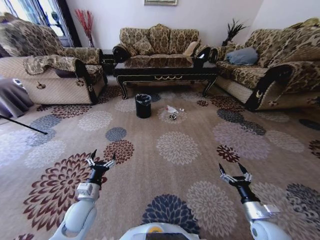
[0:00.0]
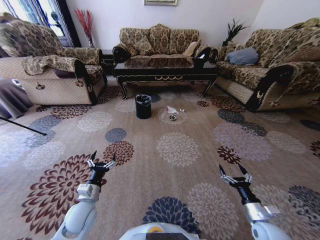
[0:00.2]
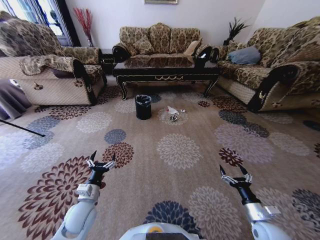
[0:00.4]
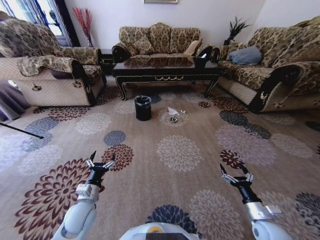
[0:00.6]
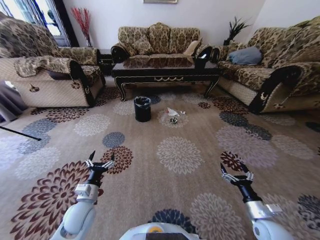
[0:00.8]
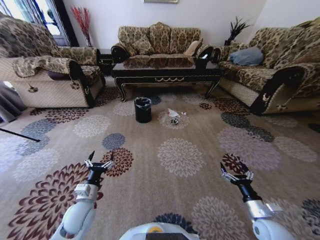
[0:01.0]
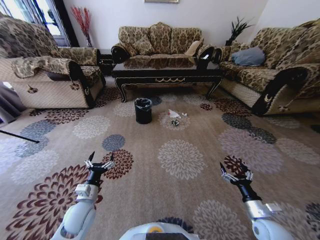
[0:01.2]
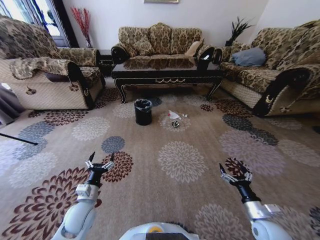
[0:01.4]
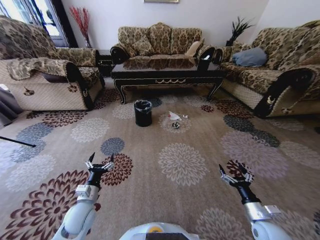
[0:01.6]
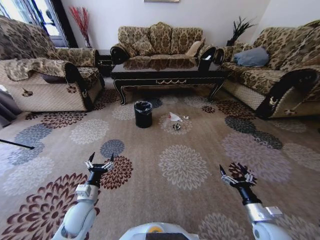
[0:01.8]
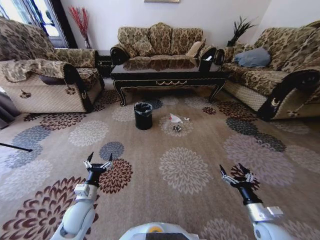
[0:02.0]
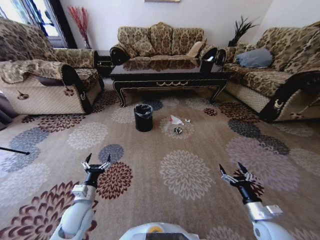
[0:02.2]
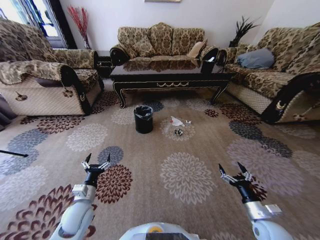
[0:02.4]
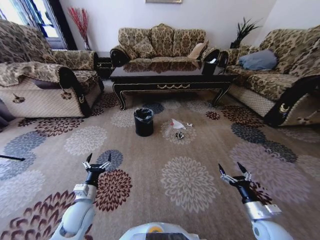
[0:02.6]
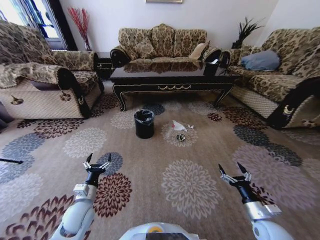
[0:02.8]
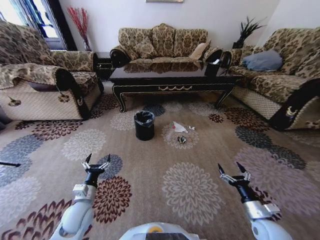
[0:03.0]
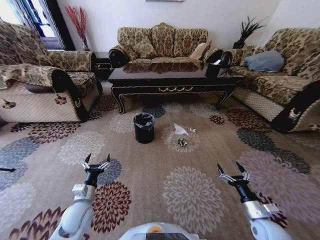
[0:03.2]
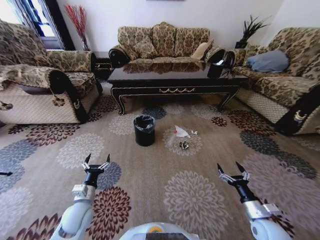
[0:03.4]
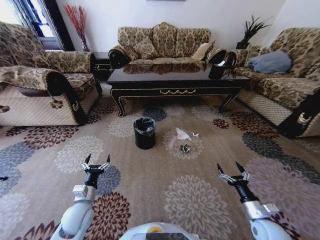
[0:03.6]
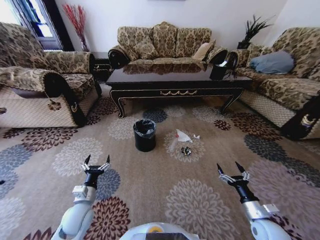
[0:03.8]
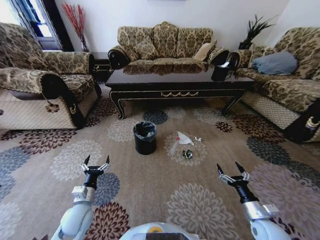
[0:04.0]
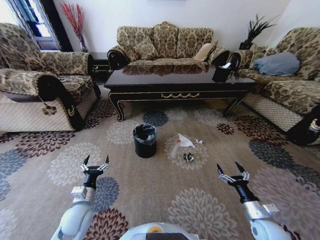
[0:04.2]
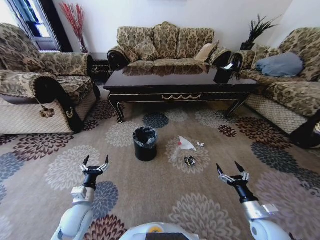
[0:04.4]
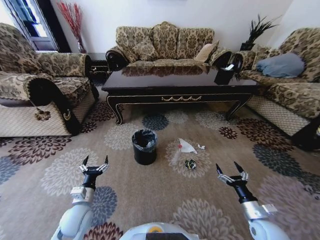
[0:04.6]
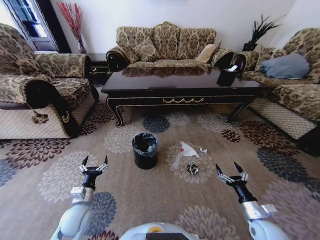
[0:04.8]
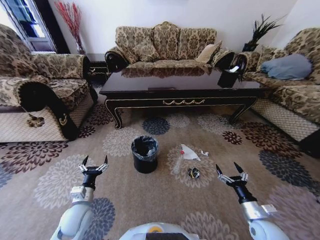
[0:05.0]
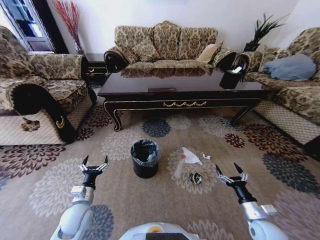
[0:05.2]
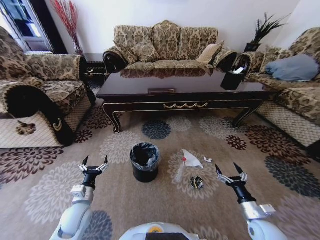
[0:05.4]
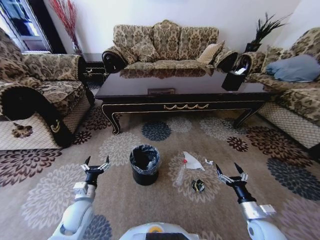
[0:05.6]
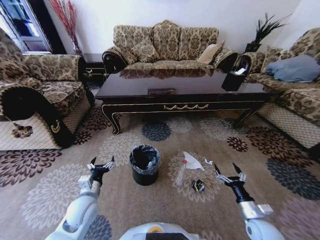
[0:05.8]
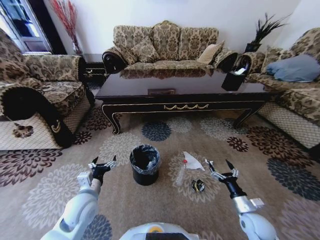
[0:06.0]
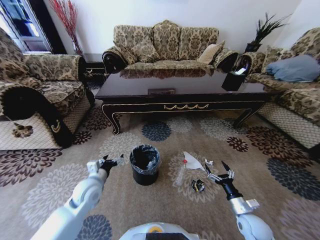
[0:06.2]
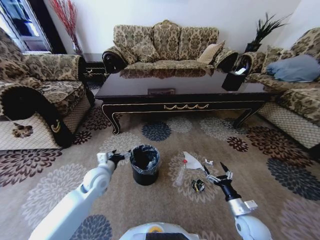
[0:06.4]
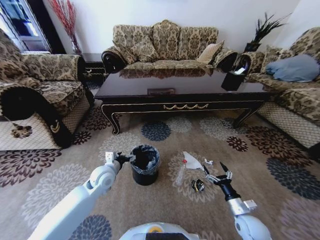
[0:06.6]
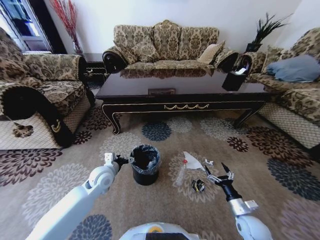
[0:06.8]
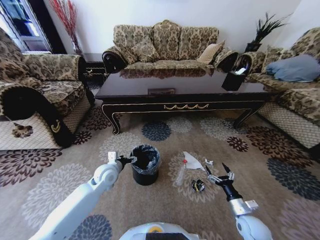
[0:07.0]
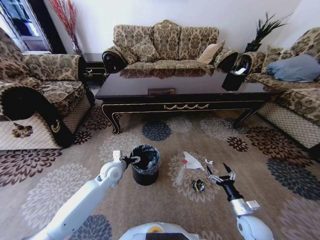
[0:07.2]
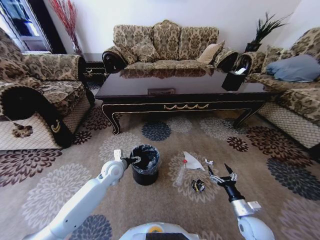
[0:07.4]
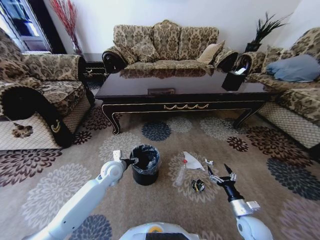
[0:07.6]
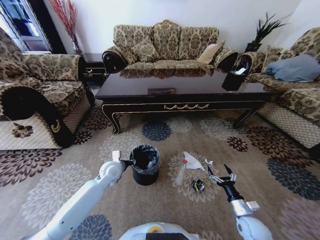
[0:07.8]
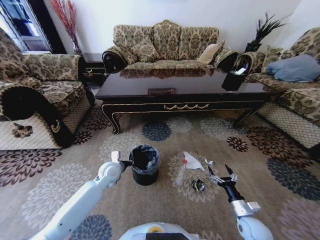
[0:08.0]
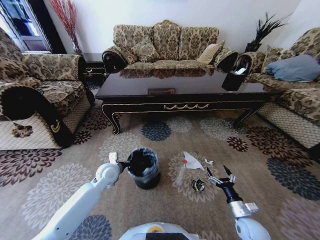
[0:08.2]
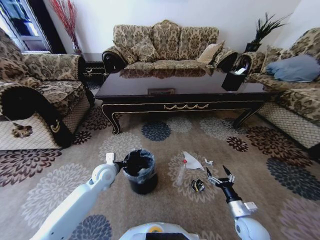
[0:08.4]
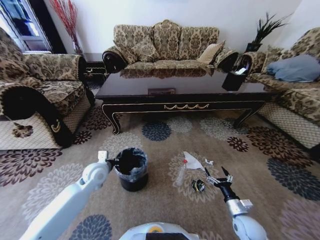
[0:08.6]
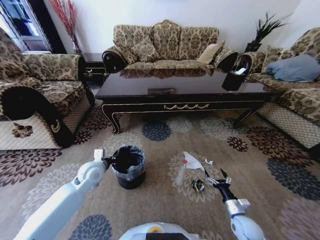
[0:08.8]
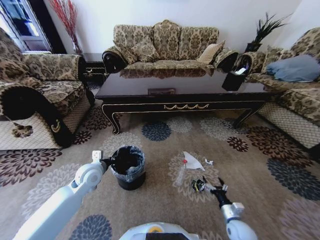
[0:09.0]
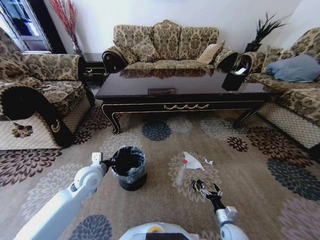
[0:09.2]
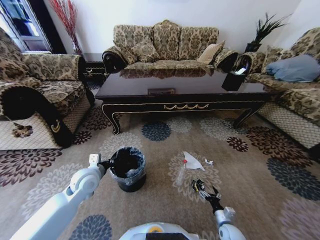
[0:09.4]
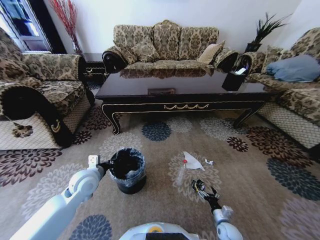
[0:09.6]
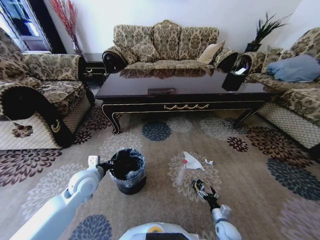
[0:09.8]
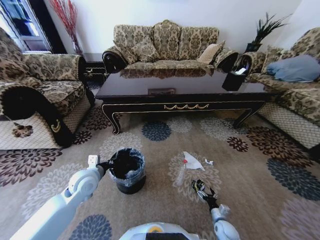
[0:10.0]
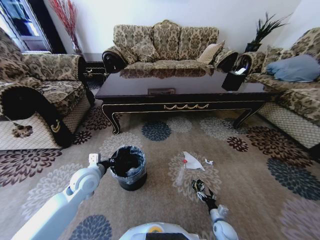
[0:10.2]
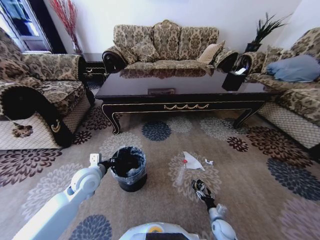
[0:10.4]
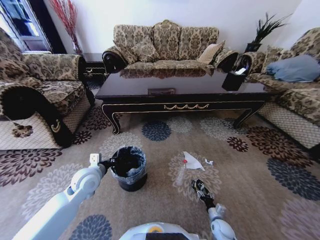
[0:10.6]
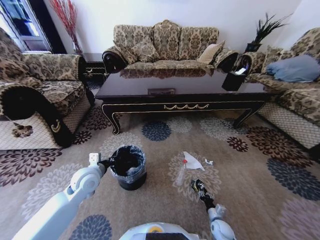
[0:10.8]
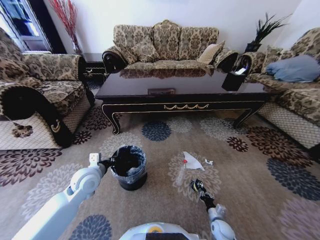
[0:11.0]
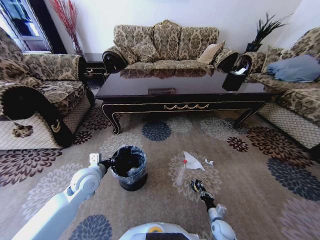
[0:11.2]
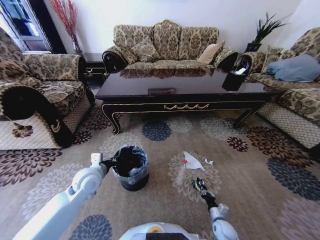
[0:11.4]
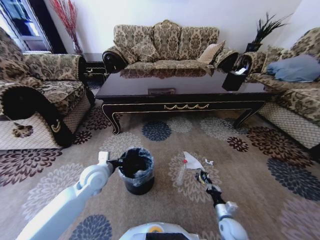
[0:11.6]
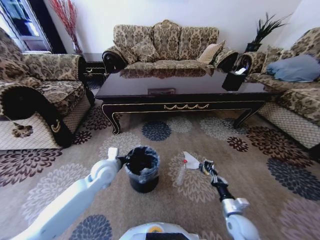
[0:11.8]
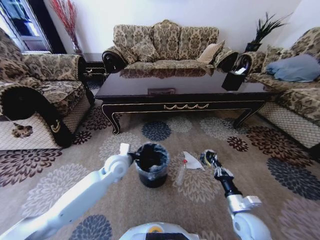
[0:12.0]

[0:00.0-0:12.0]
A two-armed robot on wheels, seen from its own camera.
Task of the whole recording: Move to the front of the table and pick up the trash from the floor, then place it into the trash bin.
0:04.4 to 0:06.0: The left gripper travels upward by about 5 cm.
0:06.0 to 0:07.6: The left gripper moves forward, about 15 cm.
0:07.6 to 0:09.0: The left gripper travels to the left by some 5 cm, and closes; the right gripper moves downward, some 5 cm.
0:09.0 to 0:10.4: The right gripper is displaced downward by approximately 10 cm.
0:10.4 to 0:12.0: The left gripper shifts about 15 cm to the right and forward; the right gripper goes about 25 cm upward, and closes its fingers.

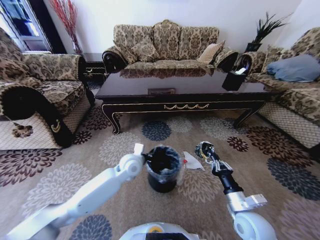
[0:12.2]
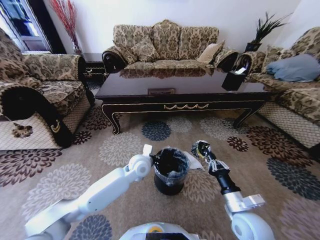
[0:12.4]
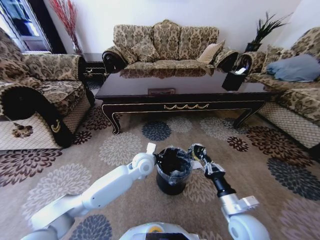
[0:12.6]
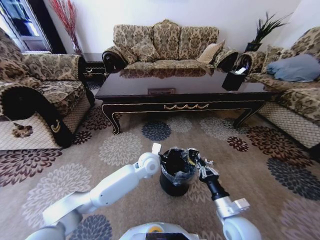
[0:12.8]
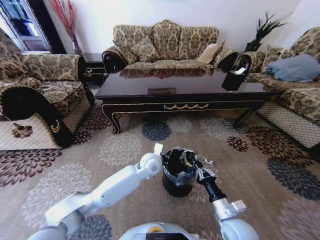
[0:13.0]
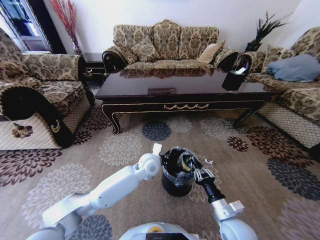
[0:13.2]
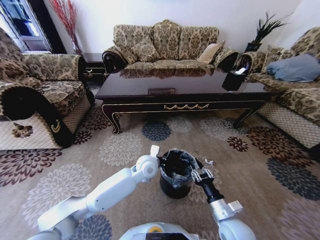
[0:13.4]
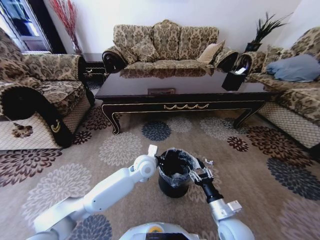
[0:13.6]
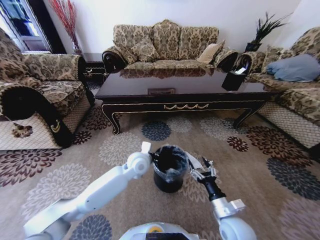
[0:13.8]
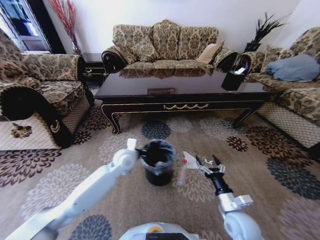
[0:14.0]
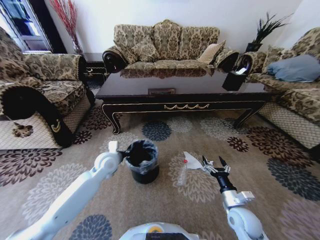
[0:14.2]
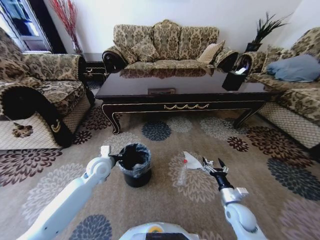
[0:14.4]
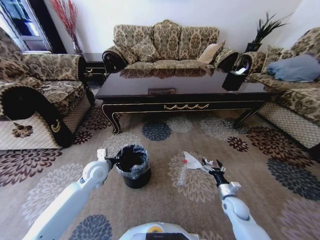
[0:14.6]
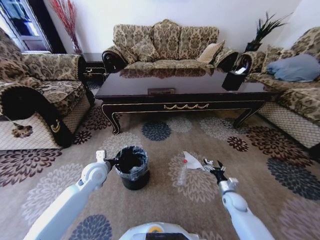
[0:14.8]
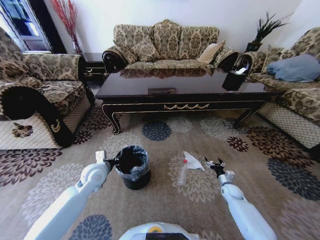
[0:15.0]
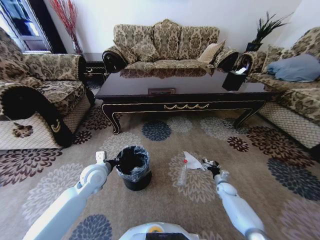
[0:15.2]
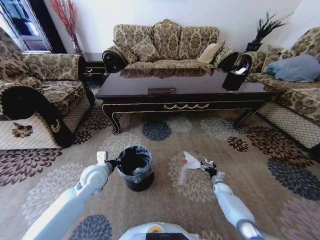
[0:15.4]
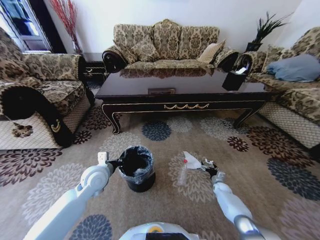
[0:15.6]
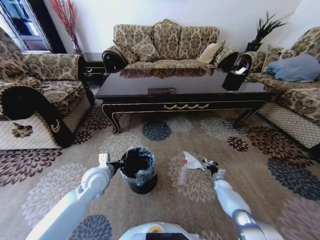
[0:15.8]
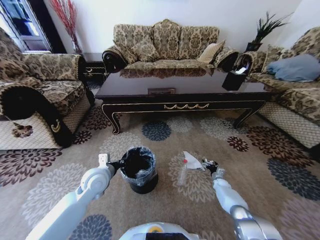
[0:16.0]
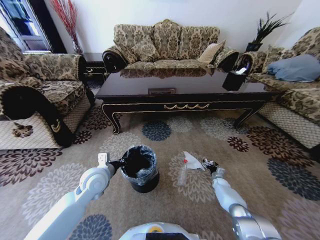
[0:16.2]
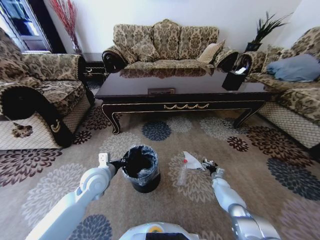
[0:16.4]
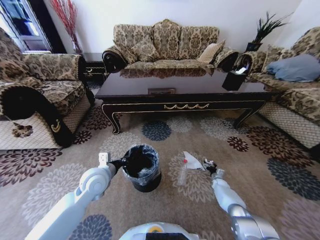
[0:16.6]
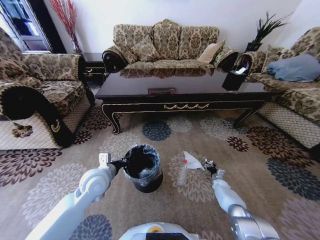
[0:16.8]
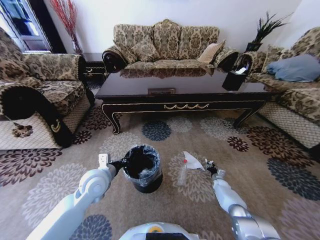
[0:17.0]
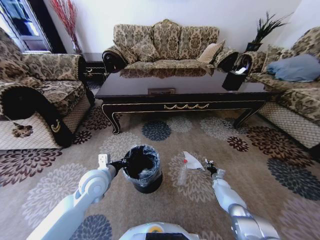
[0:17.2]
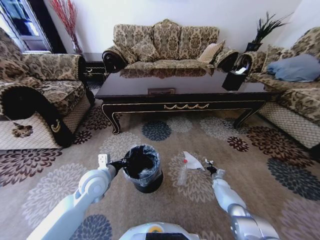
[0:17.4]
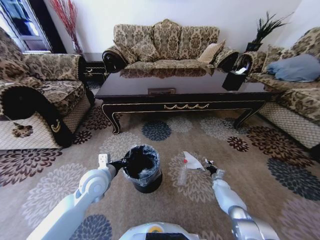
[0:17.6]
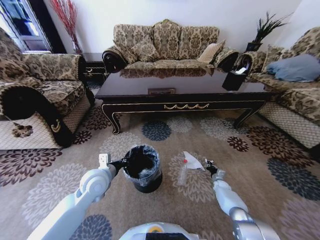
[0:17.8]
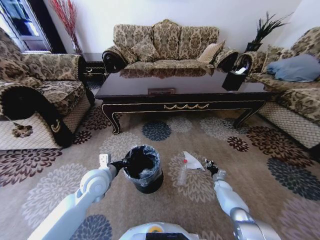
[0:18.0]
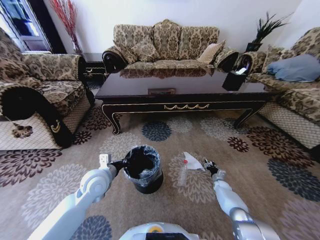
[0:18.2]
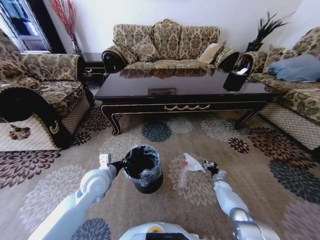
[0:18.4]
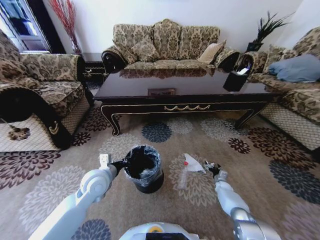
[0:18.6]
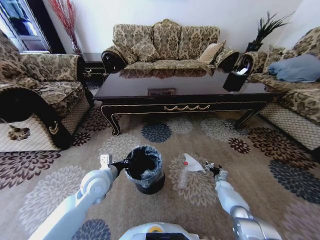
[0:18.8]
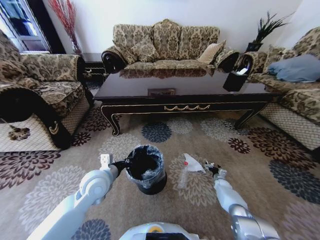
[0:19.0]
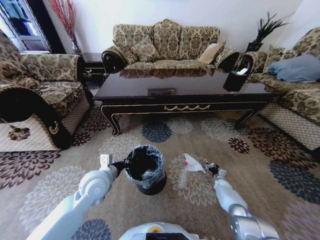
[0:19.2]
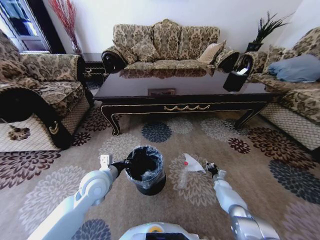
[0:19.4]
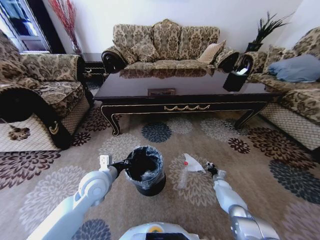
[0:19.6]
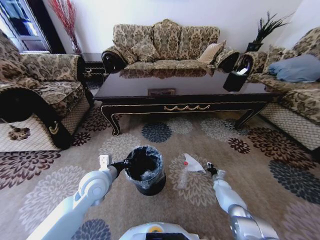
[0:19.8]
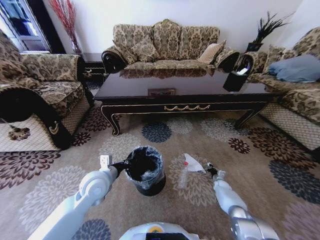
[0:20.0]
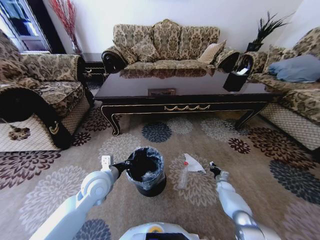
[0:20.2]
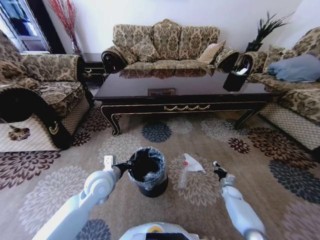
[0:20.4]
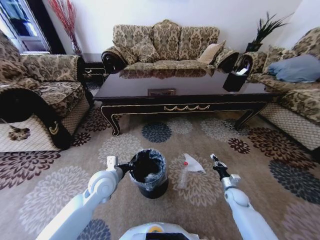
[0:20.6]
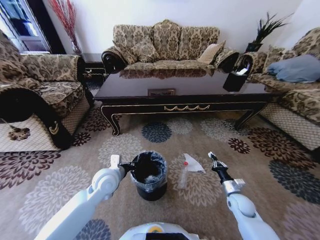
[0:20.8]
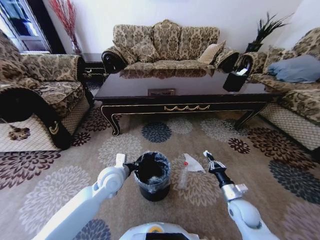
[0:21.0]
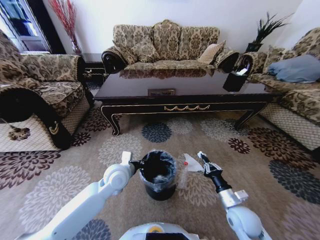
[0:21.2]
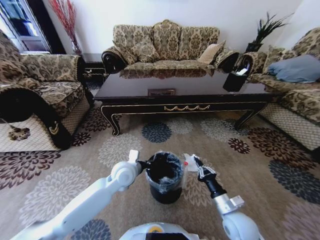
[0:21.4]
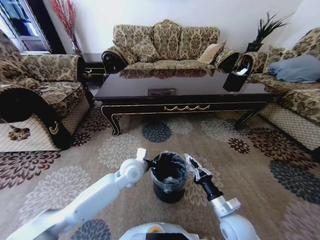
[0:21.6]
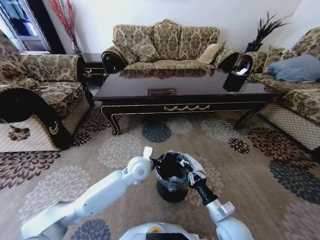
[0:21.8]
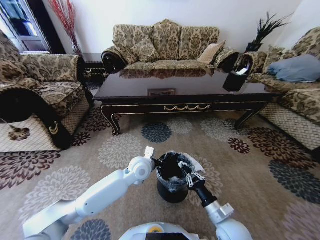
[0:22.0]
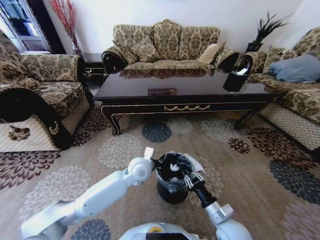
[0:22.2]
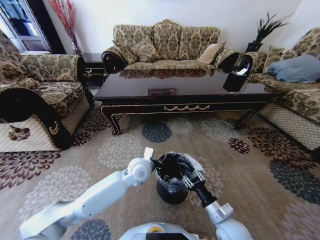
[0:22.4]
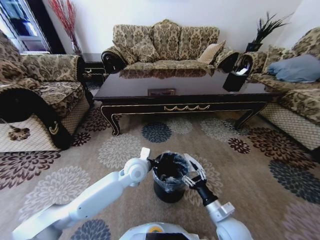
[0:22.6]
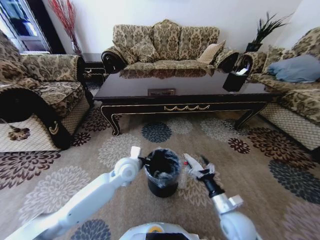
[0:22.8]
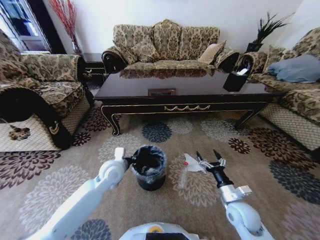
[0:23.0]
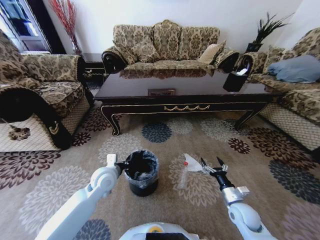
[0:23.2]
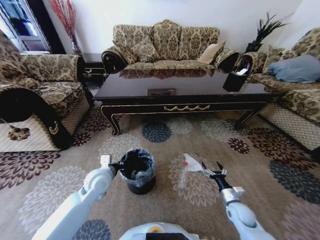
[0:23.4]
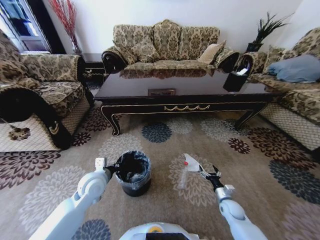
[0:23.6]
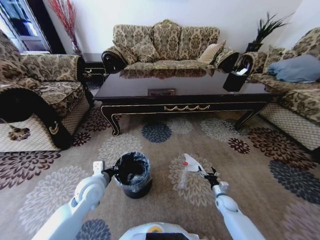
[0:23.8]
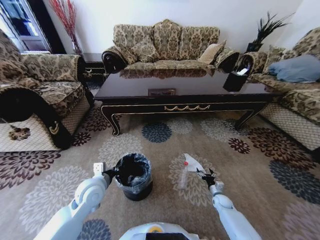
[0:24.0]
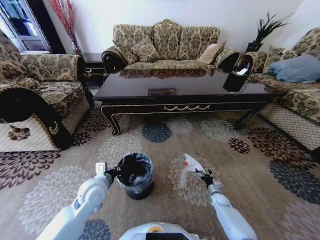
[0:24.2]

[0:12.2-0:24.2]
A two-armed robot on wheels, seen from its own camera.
Task of the whole recording: Move to the front of the table and pick up the trash from the floor, then place it into the trash bin.
0:12.2 to 0:13.8: The right gripper changes place by approximately 5 cm, and opens its fingers.
0:13.8 to 0:15.2: The left gripper shifts approximately 20 cm to the left. Meanwhile the right gripper moves forward, downward and to the right, some 35 cm.
0:15.2 to 0:16.6: The right gripper changes place by about 5 cm; the left gripper moves approximately 5 cm.
0:16.6 to 0:18.2: The right gripper closes, then opens again.
0:18.2 to 0:19.8: The right gripper closes its fingers.
0:19.8 to 0:21.2: The right gripper is displaced upward, backward and to the left by some 35 cm. Meanwhile the left gripper shifts about 5 cm to the right.
0:21.2 to 0:22.6: The left gripper is displaced to the right by about 5 cm, while the right gripper is displaced to the left by approximately 5 cm, and opens its fingers.
0:22.6 to 0:24.2: The left gripper moves to the left and backward, roughly 15 cm; the right gripper travels downward, forward and to the right by some 30 cm, and opens.
